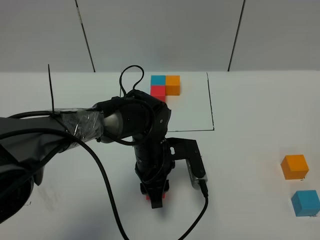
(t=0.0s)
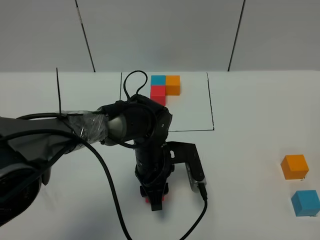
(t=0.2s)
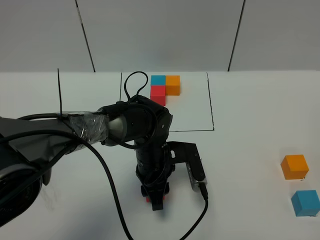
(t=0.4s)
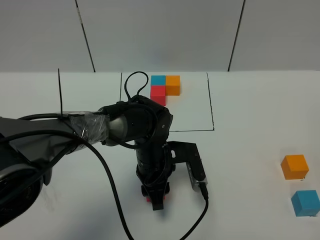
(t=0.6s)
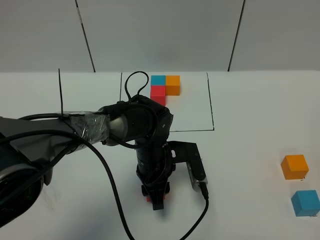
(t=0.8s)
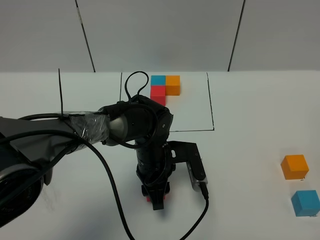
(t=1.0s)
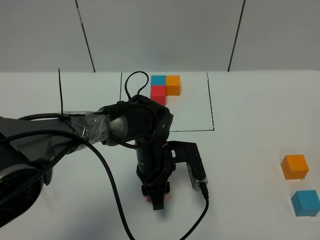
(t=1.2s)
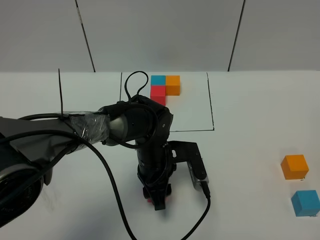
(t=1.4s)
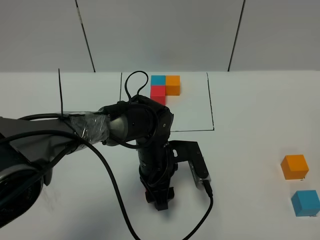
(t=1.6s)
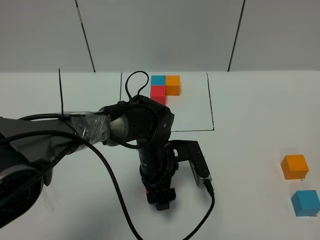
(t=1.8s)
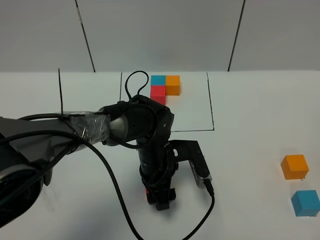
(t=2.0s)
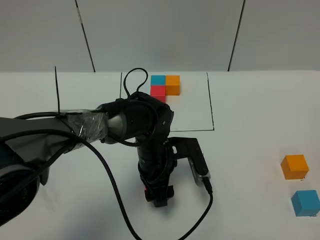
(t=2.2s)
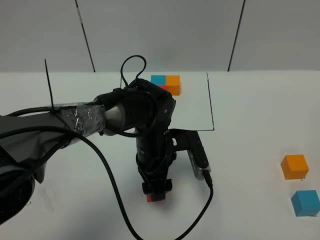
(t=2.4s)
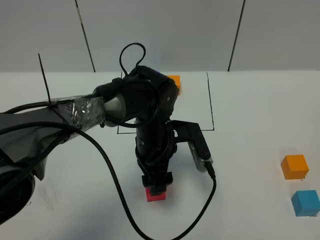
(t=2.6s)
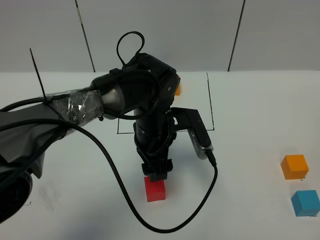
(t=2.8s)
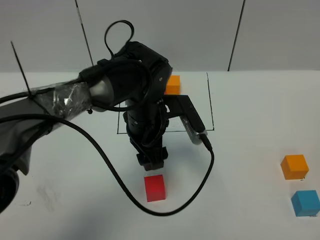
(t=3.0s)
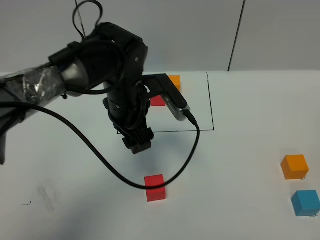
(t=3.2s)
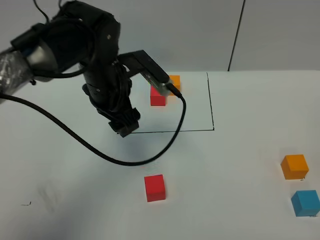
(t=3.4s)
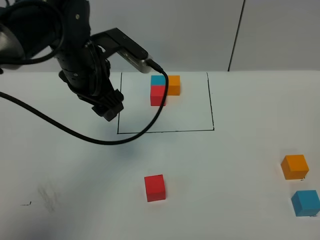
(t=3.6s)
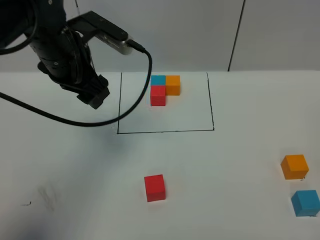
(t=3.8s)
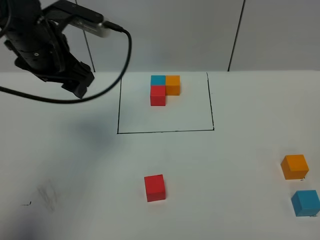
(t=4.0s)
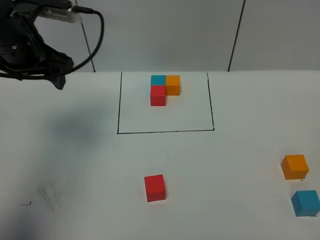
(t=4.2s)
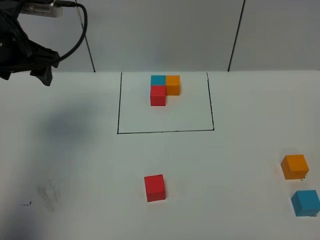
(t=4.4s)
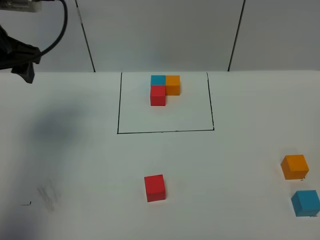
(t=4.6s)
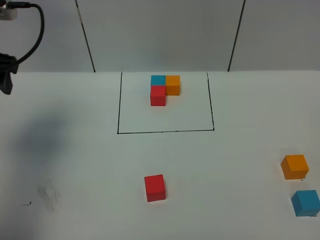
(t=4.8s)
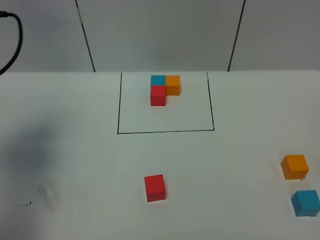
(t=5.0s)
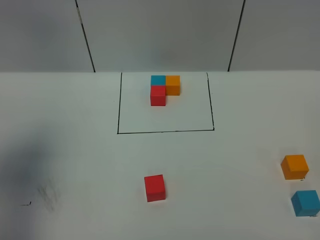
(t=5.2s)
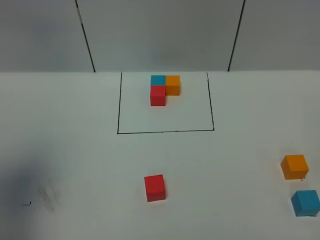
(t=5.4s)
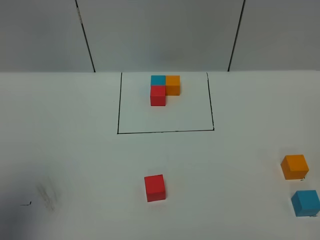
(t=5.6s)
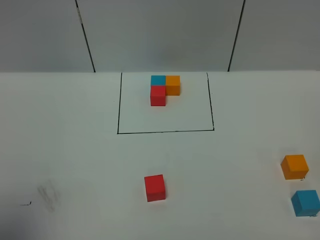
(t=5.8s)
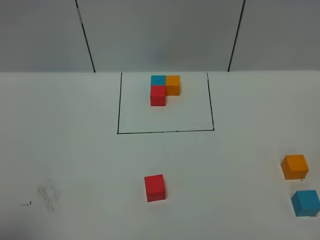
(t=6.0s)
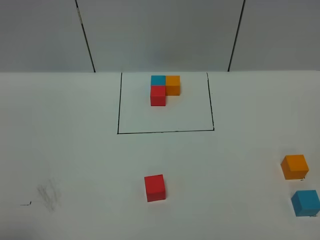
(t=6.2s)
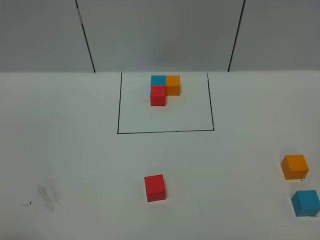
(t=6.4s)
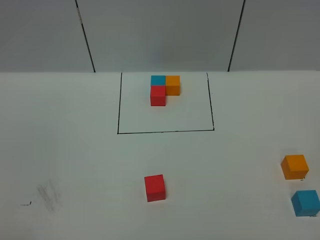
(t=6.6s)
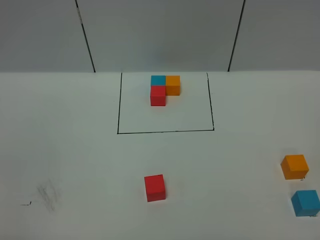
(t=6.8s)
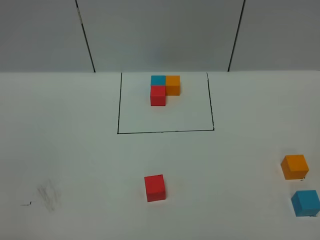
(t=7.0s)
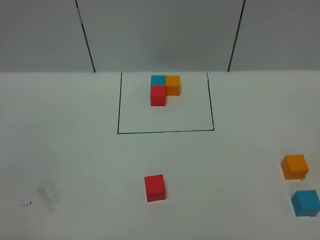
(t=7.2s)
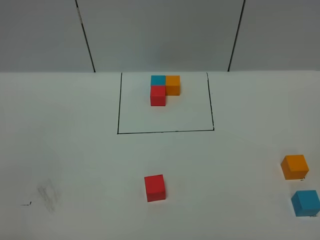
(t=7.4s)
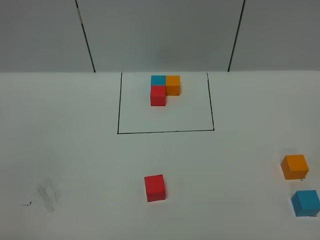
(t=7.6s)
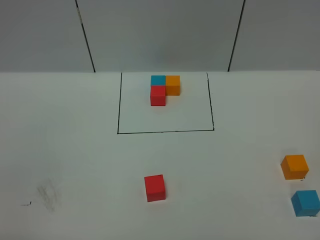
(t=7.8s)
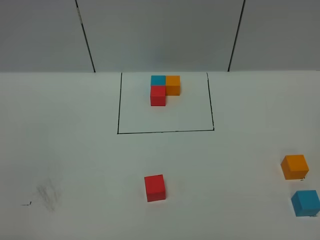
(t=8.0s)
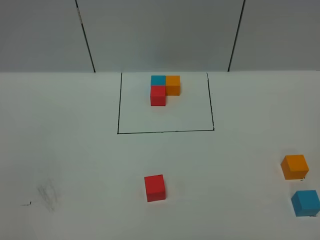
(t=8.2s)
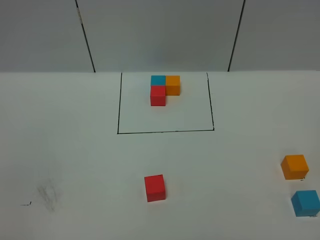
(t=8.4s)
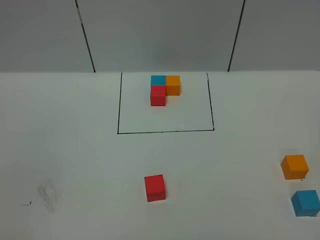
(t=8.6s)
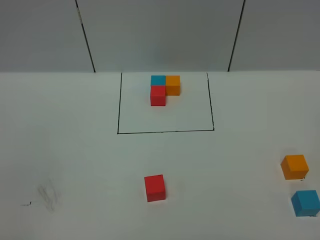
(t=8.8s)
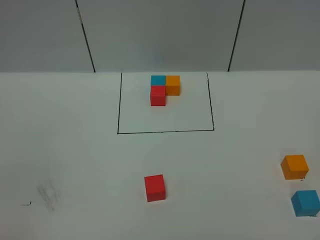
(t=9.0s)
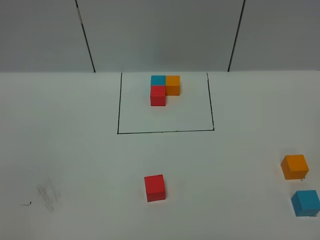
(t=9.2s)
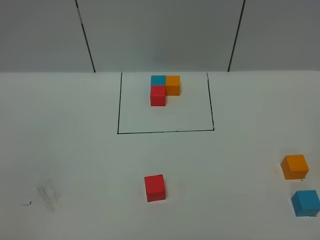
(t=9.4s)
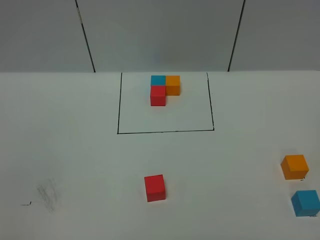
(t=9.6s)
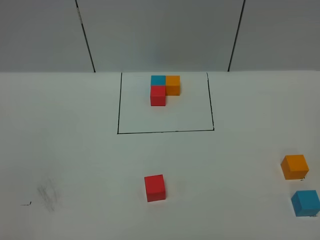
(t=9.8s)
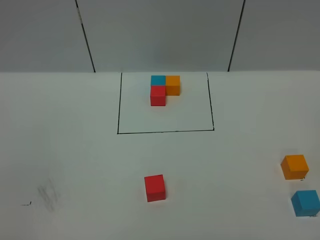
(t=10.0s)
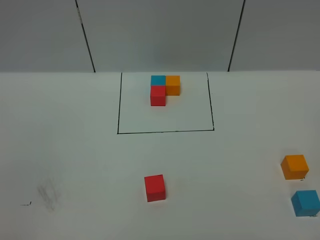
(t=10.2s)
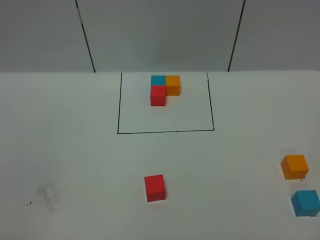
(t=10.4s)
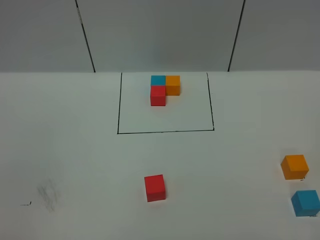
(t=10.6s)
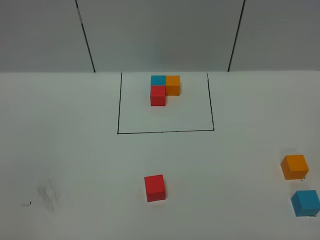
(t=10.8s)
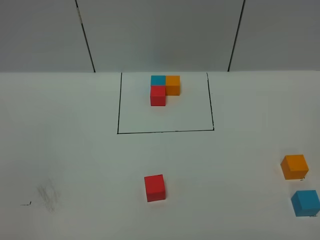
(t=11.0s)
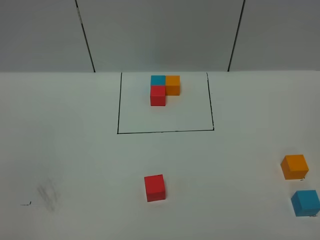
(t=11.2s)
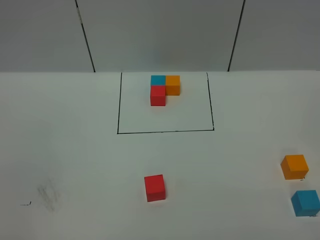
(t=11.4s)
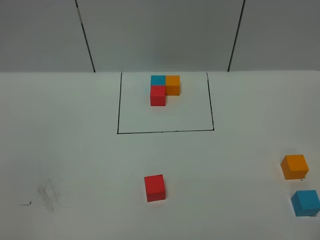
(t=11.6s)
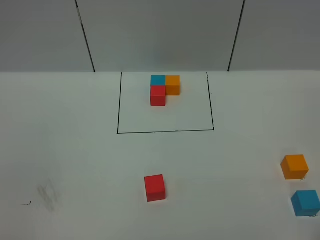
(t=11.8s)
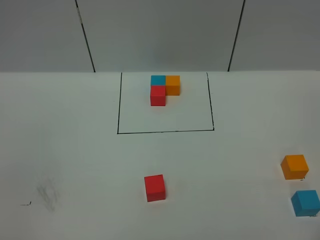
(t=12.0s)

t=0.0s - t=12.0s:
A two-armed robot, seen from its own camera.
Task of the whole recording: According to the building block template in front, assemble the scattered blocks together.
Step, t=0.0s - t=2.6s: Put the red cube in the center of the table.
t=0.0s - t=1.6s: The left gripper opens up.
t=1.6s - t=3.0s: The left gripper heads upward, covering about 10 cm.
t=3.0s - t=4.4s: The left gripper heads to the left and upward, covering approximately 25 cm.
t=4.4s - t=6.0s: The left gripper goes about 35 cm backward.
t=9.0s - t=10.4s: The two grippers keep their place.

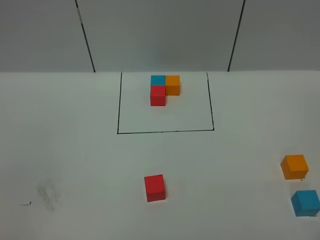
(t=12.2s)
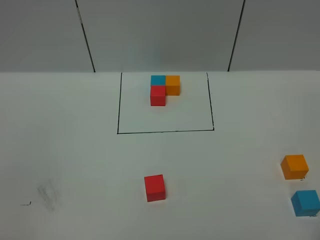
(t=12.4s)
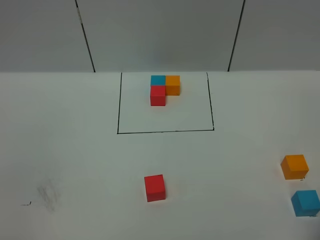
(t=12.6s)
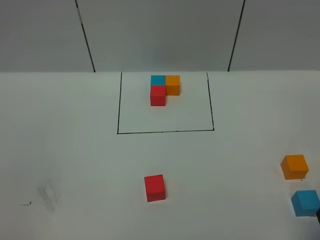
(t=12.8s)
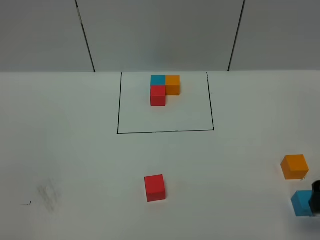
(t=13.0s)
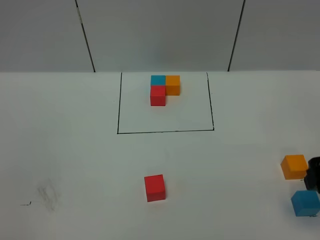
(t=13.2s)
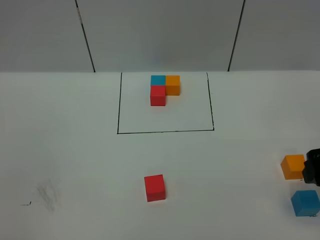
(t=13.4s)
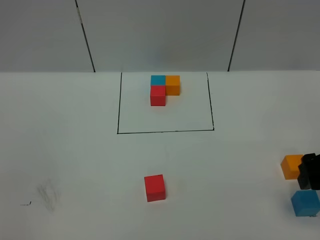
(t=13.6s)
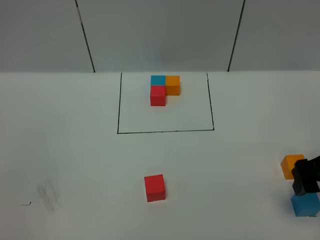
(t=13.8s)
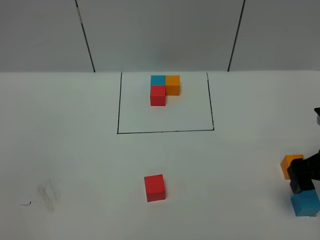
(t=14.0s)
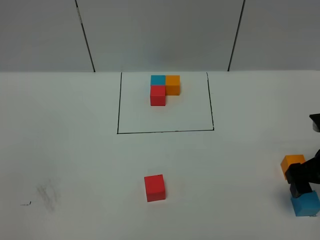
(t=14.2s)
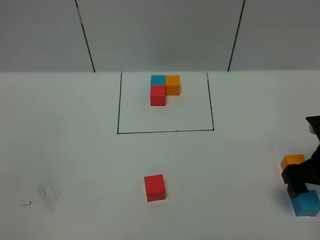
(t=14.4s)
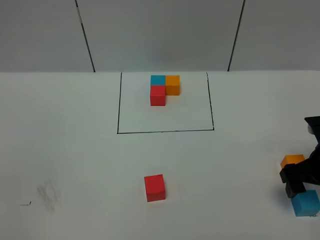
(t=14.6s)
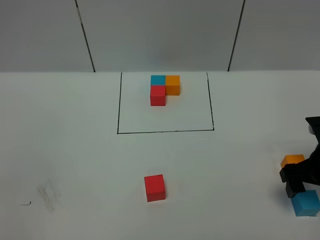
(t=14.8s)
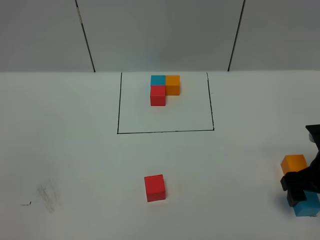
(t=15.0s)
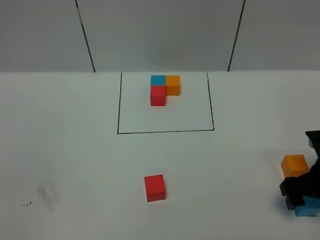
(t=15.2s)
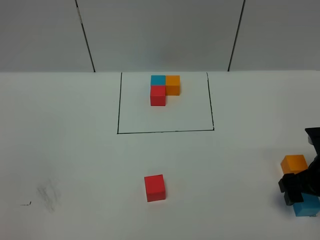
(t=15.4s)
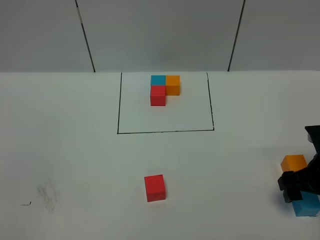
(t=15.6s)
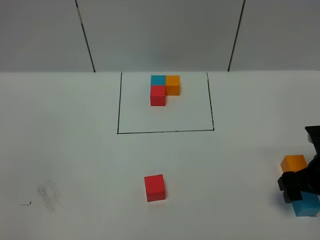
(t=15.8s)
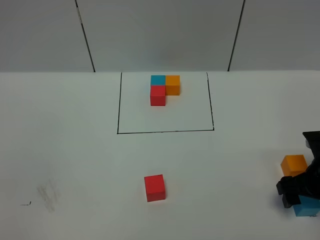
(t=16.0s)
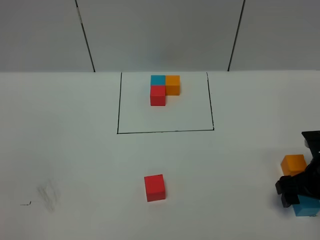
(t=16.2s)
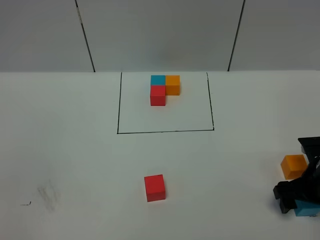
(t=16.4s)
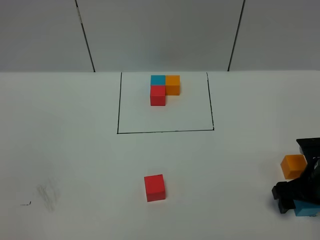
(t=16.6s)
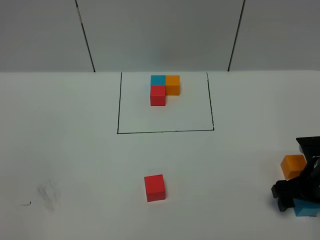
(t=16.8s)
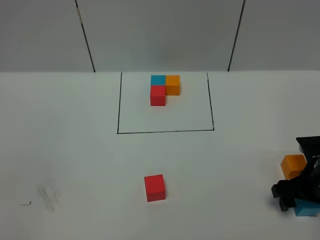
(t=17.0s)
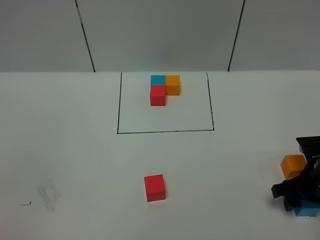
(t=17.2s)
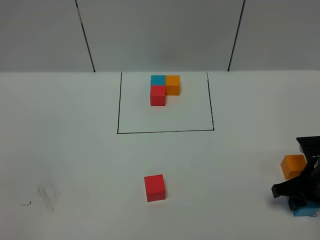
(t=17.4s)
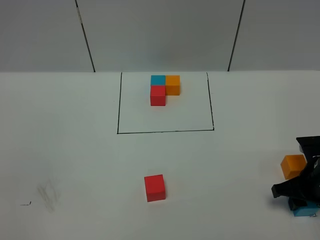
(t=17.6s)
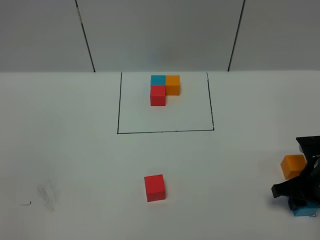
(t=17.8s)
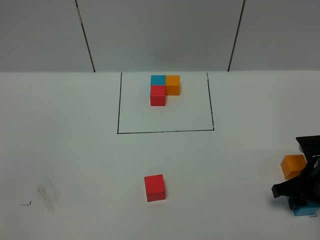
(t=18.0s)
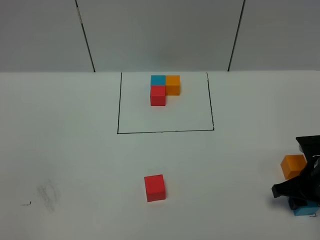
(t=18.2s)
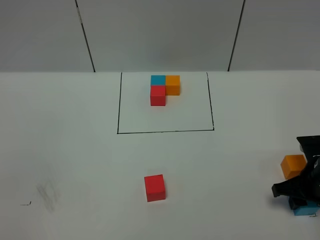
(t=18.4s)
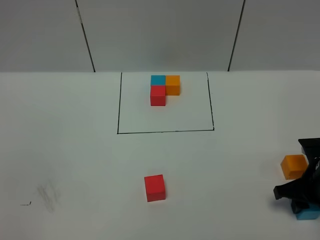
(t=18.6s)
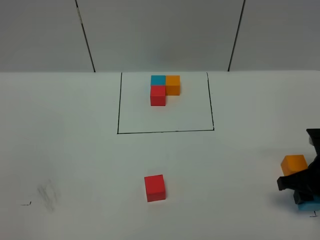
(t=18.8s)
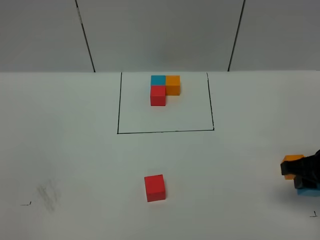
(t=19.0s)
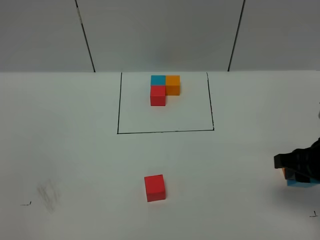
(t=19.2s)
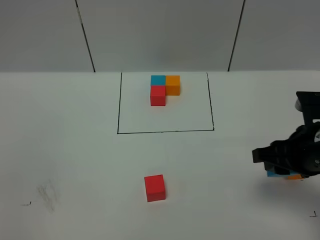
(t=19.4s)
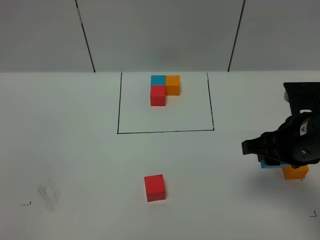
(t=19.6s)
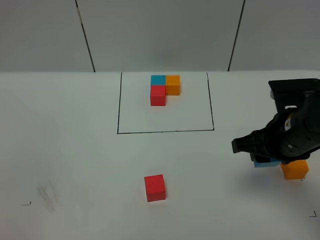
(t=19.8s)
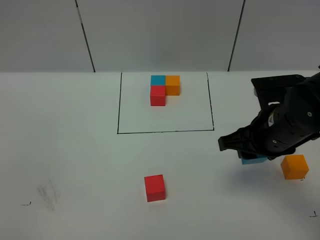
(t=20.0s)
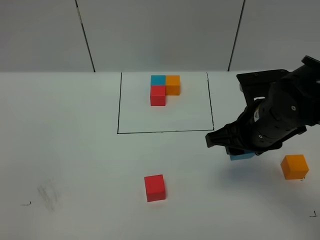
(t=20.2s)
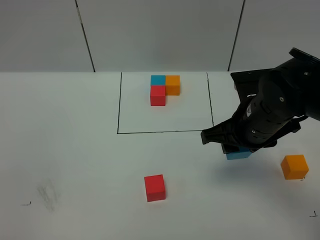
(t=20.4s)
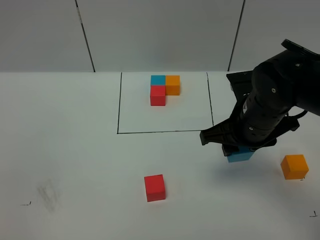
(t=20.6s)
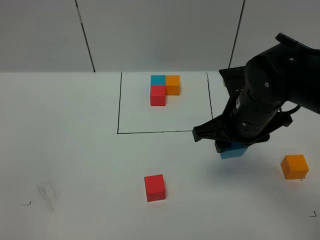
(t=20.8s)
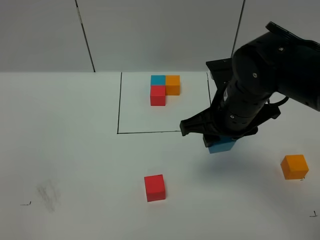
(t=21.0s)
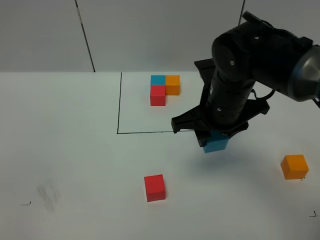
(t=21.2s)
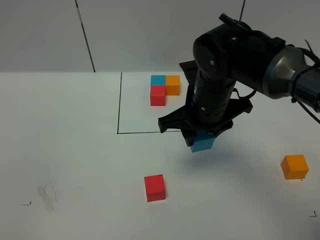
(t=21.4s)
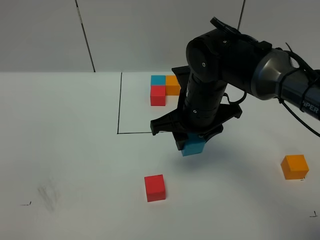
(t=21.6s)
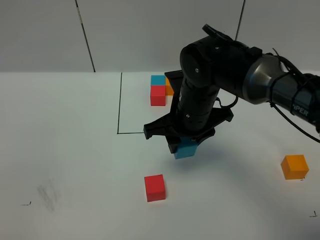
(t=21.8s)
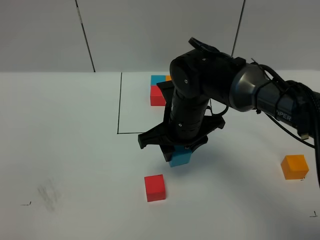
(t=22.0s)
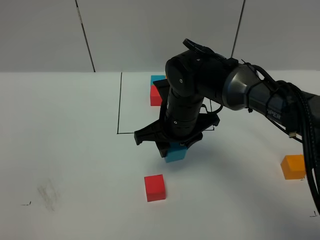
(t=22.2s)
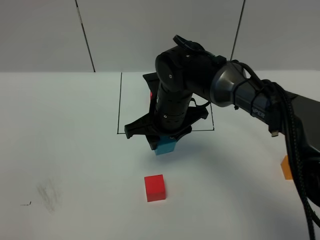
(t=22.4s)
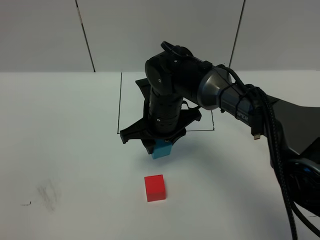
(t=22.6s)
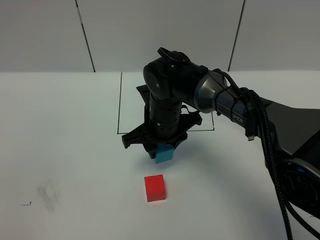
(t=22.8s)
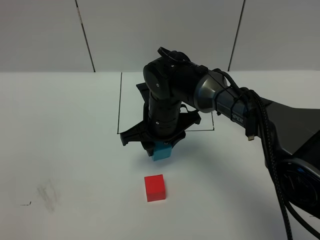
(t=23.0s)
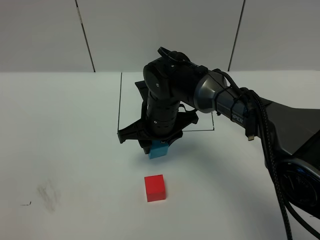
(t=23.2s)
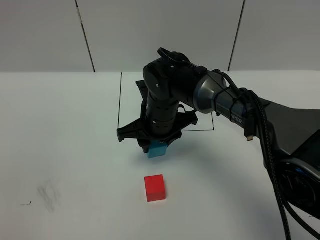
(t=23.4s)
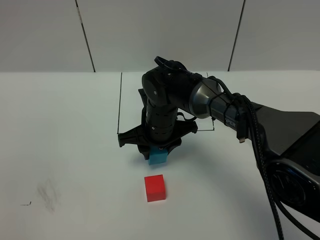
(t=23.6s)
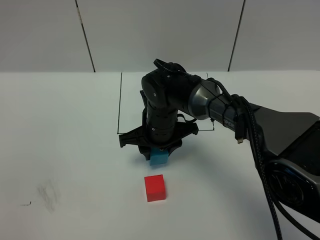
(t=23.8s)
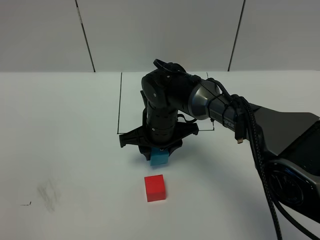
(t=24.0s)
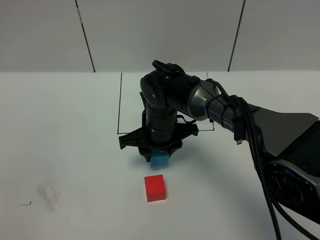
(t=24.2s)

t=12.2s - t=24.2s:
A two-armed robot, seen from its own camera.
Task of the whole recording: According to the building block template in front, assemble the scattered blocks together.
t=12.2s - t=13.8s: The right gripper shifts about 10 cm forward, and opens its fingers.
t=13.8s - t=15.2s: The right gripper shifts roughly 5 cm downward.
t=15.2s - t=16.6s: The grippers move only a little.
t=16.6s - t=18.2s: The right gripper closes up.
t=18.2s - t=19.8s: The right gripper travels upward and to the left by approximately 15 cm.
t=19.8s - t=21.2s: The right gripper is displaced to the left and forward by roughly 10 cm.
t=21.2s - t=22.6s: The right gripper heads to the left and downward, covering approximately 10 cm.
t=22.6s - t=24.2s: There are only small adjustments of the grippers.
